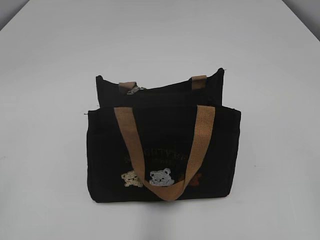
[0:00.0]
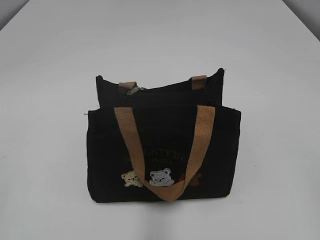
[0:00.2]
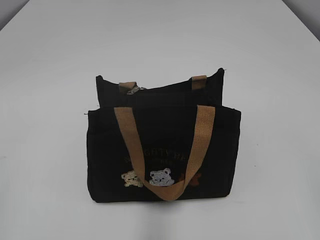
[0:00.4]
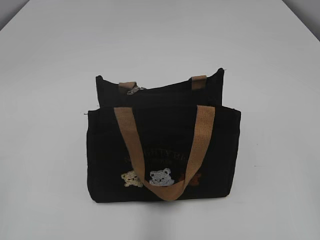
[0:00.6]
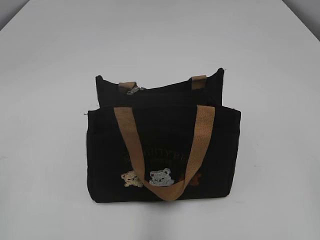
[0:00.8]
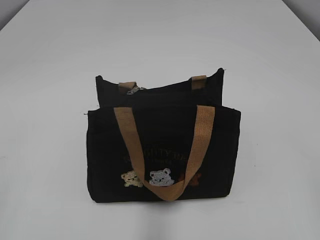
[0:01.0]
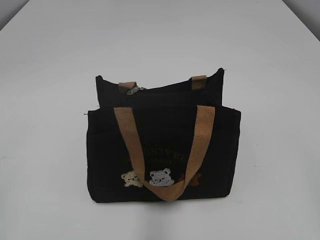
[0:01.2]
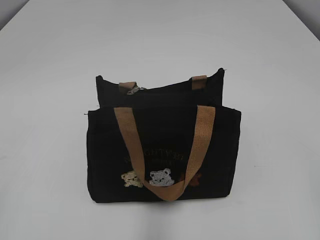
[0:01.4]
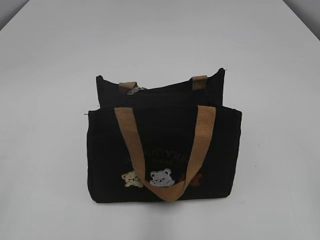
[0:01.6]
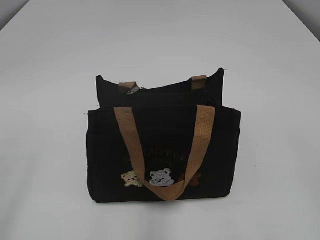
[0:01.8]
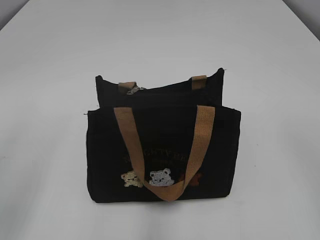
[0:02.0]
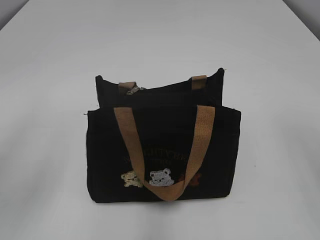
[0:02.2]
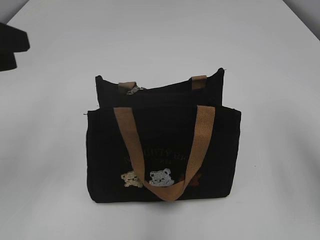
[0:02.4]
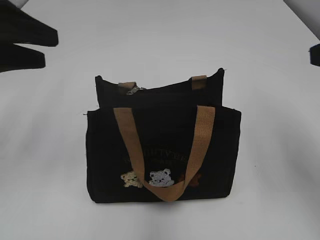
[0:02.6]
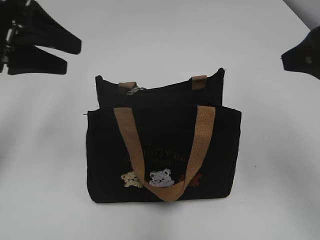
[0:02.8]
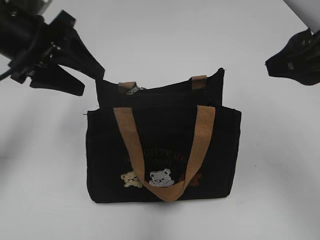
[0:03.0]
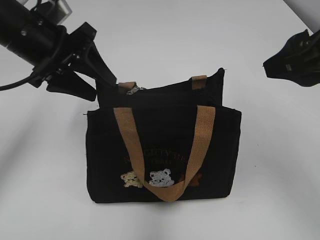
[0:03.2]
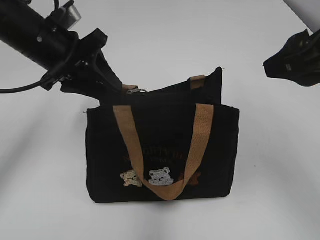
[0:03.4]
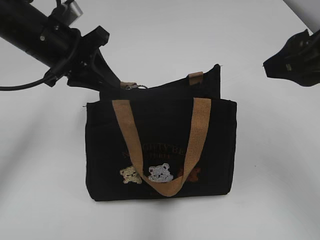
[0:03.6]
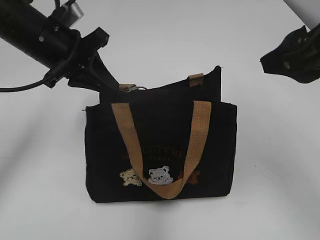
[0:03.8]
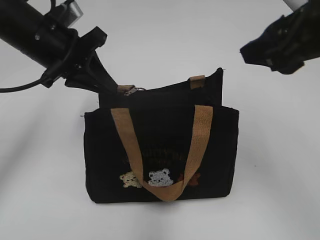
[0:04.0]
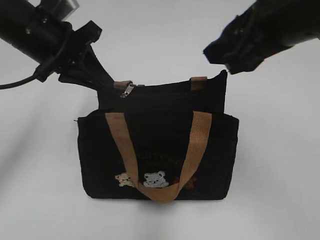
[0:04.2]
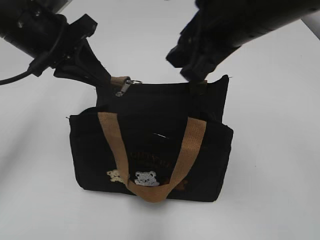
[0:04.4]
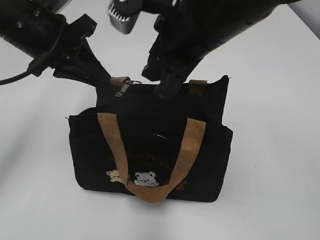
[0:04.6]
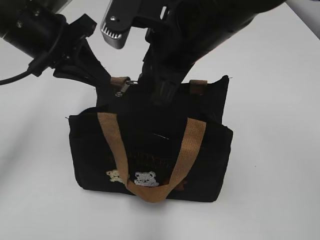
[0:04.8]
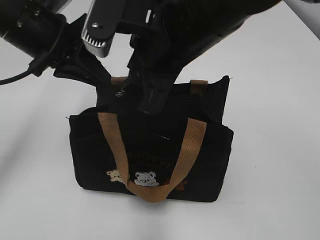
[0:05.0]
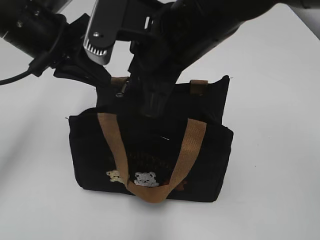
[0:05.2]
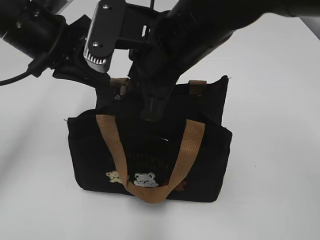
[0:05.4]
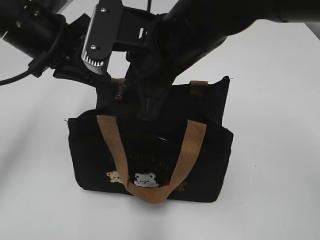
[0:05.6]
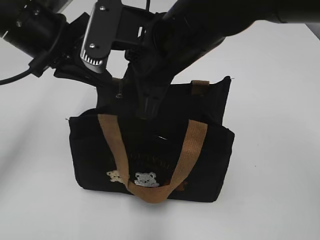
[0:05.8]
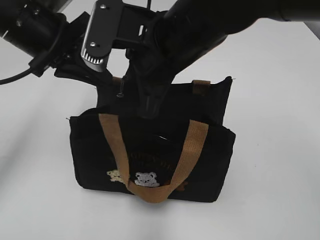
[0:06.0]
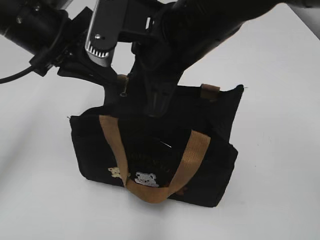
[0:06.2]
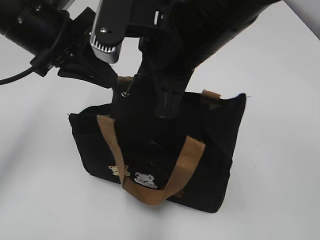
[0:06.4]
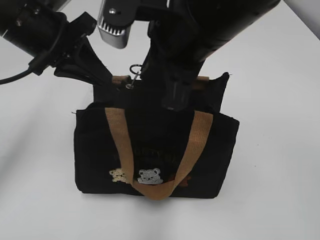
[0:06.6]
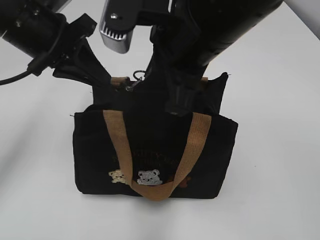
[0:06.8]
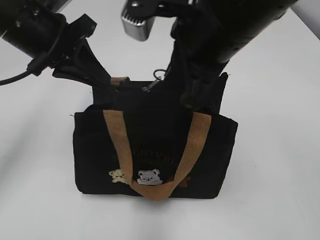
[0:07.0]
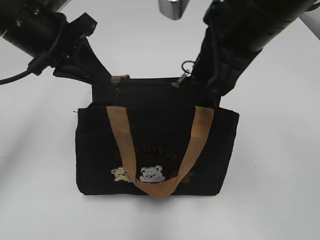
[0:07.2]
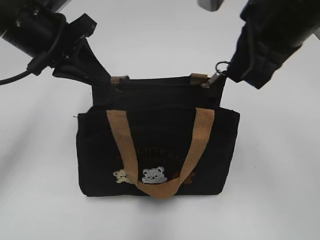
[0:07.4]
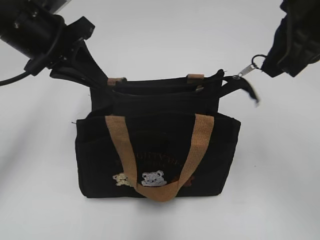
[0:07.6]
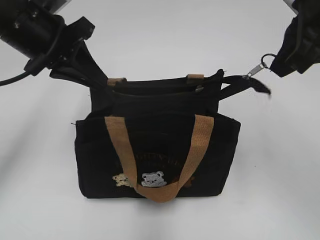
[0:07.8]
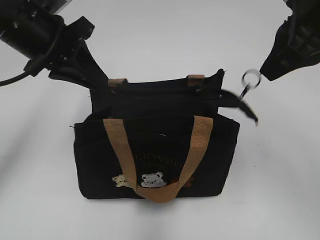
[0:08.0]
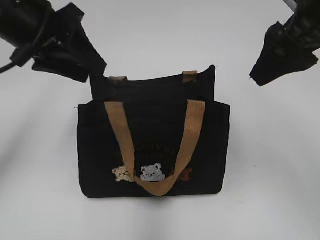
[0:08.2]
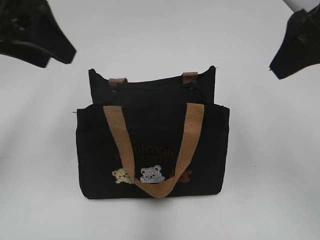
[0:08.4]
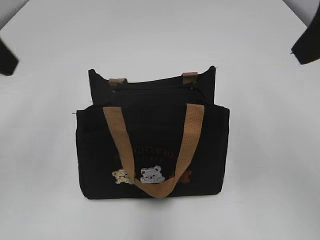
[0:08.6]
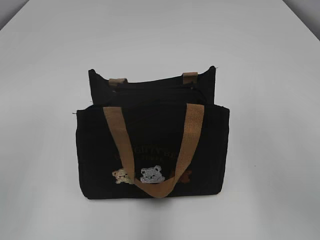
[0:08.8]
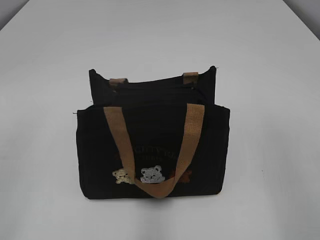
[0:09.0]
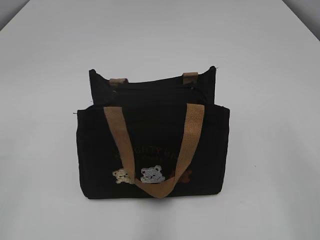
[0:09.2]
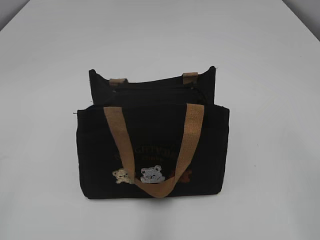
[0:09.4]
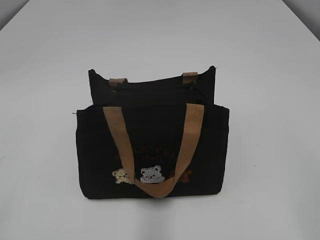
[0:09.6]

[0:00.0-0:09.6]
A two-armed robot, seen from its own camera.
Step, 0:00.0 to 0:08.0: Pull open the zipper with your right hand.
0:01.6 to 0:03.2: The left gripper heads forward and to the right, covering about 35 cm; the right gripper moves forward, some 20 cm.
0:03.2 to 0:04.8: The left gripper closes up. Meanwhile the right gripper heads to the left, covering approximately 15 cm, and closes its fingers.
0:04.8 to 0:06.4: The right gripper closes its fingers.
0:06.4 to 0:08.0: The right gripper is displaced to the right by approximately 15 cm.
0:08.0 to 0:09.6: The left gripper travels backward and to the left by roughly 35 cm, and opens up, while the right gripper shifts about 25 cm backward, and opens up.

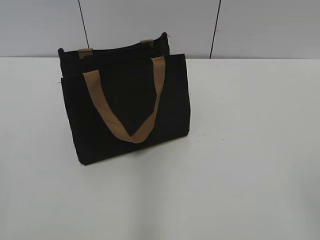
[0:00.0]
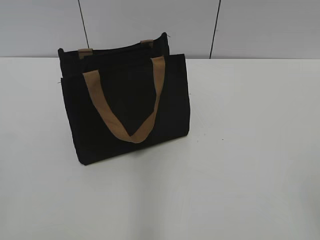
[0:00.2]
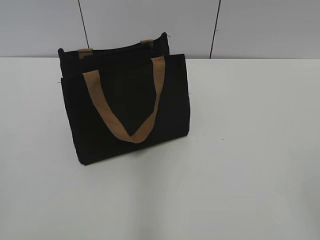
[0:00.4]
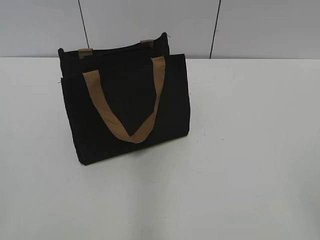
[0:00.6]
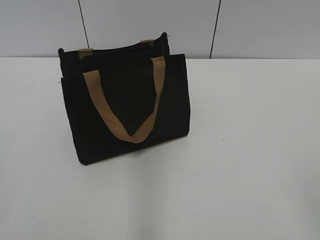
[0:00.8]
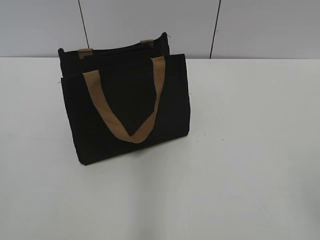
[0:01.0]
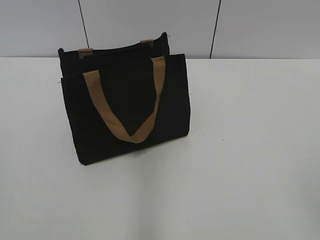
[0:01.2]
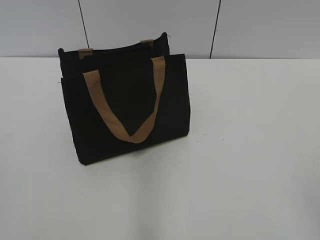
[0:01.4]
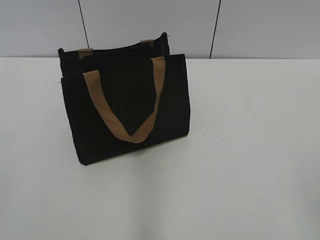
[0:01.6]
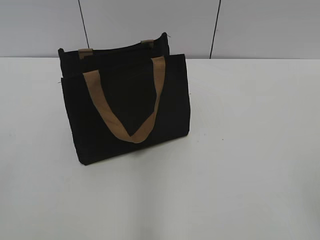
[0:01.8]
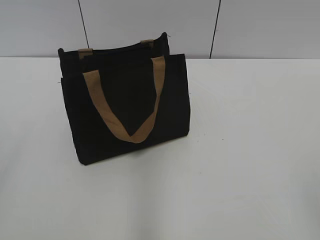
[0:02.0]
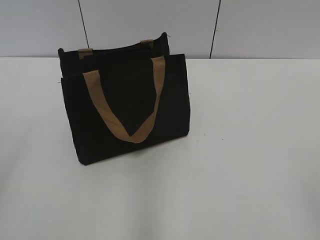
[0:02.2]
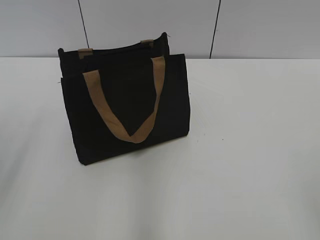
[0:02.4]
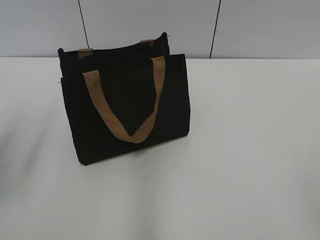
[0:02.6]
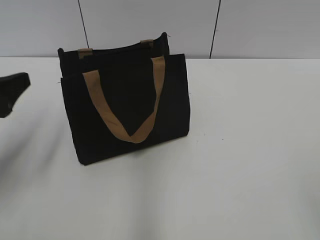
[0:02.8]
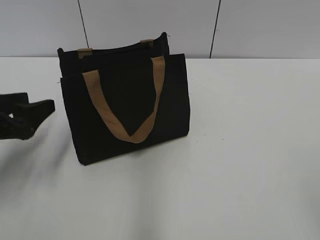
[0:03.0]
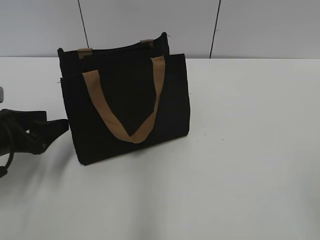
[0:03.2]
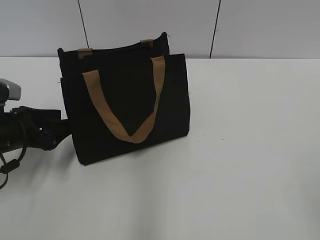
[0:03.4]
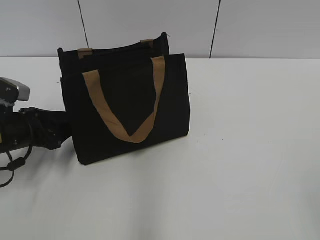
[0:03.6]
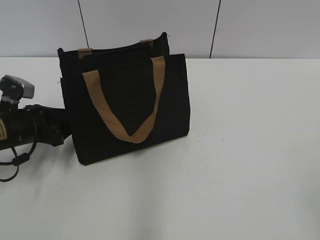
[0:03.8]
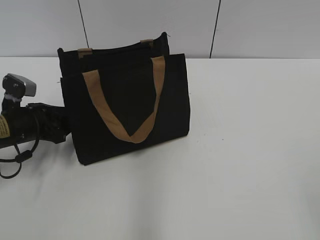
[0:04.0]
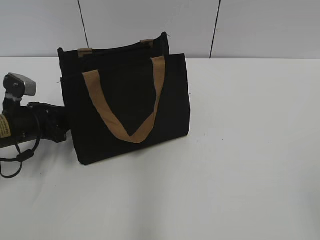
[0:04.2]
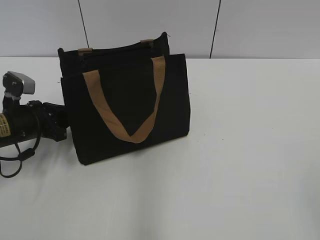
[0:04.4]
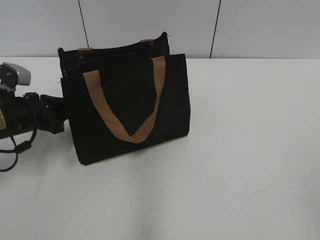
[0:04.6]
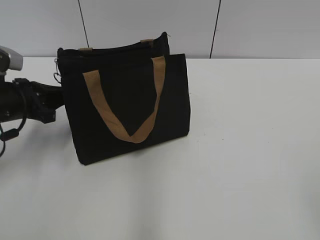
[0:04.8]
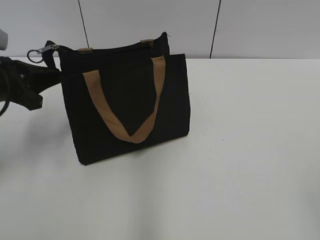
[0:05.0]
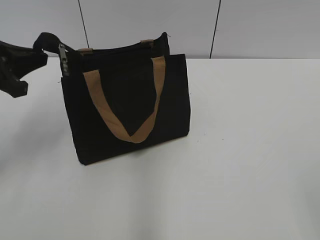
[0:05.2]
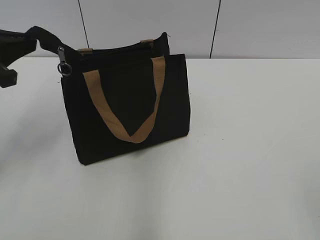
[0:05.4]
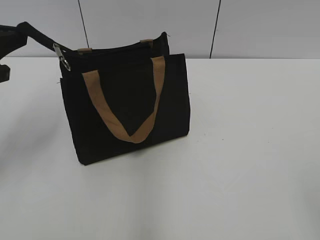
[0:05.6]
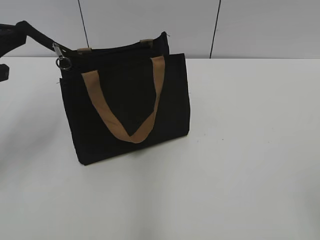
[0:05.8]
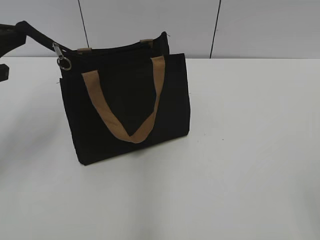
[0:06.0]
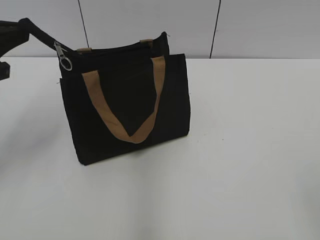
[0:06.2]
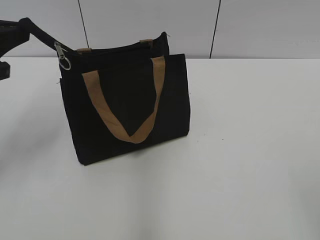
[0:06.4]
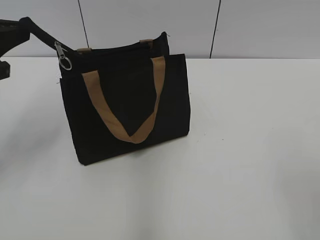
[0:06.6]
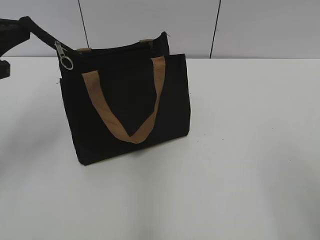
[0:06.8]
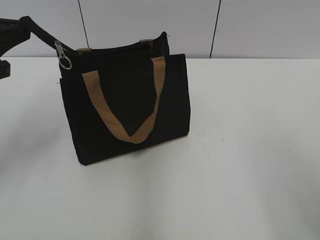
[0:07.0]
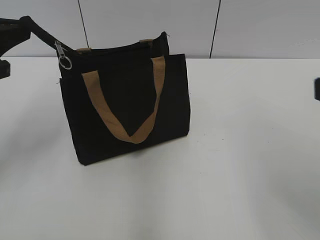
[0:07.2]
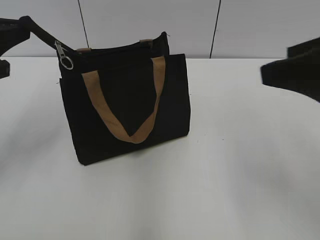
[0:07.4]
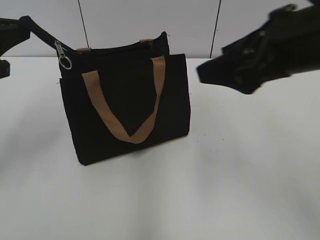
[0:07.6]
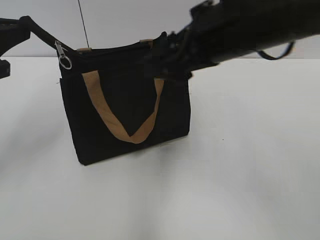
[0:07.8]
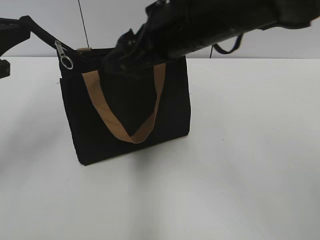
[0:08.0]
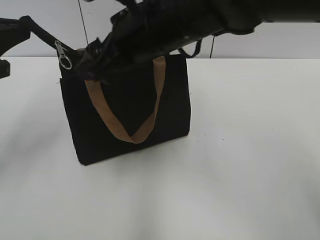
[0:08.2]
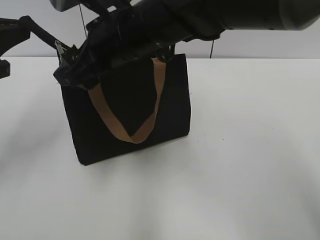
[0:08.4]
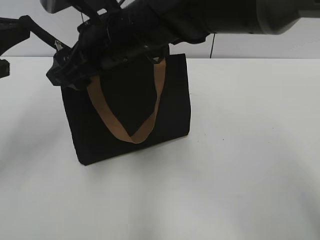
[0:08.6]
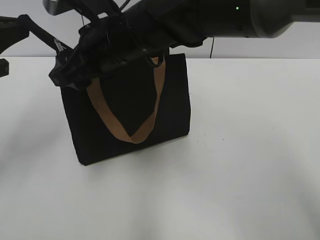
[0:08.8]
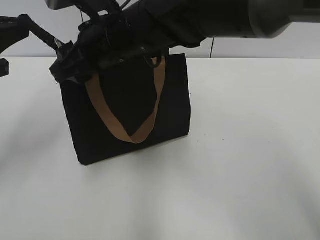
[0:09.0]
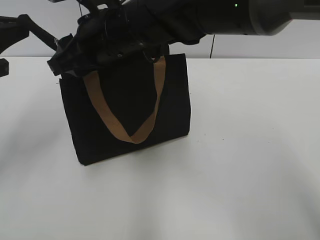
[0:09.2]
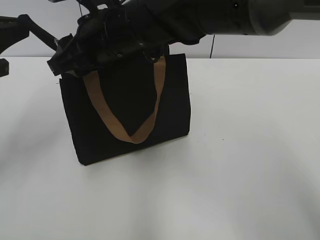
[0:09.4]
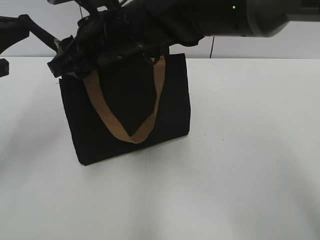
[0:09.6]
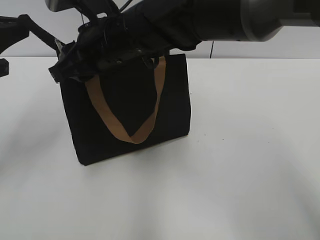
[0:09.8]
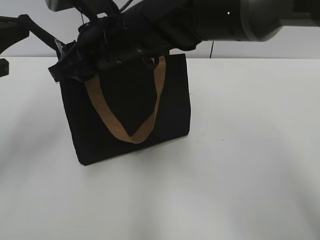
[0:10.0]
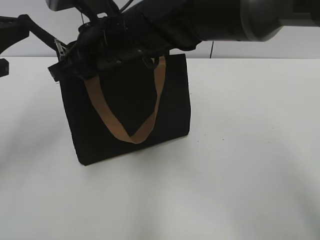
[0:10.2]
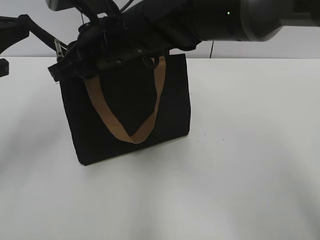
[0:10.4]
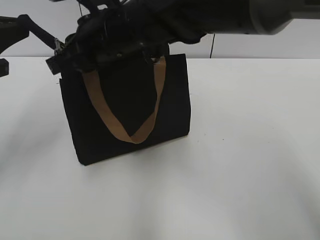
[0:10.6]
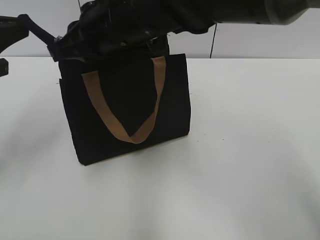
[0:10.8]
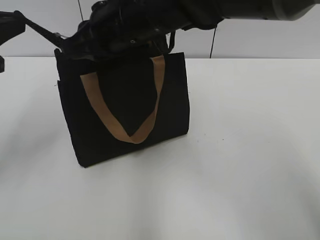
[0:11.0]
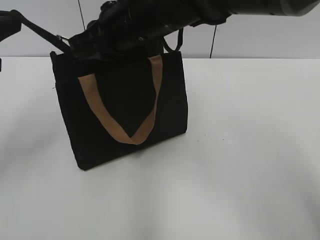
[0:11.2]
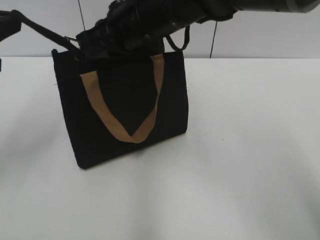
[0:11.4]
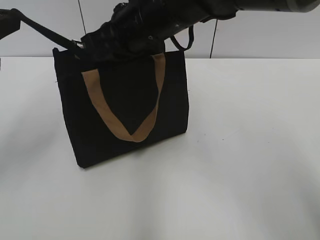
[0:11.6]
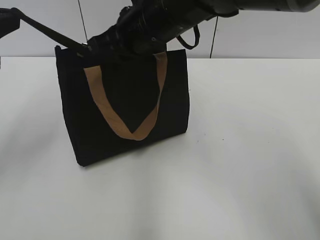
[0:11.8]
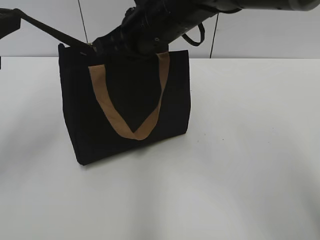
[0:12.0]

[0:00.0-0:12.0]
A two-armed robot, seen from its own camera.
0:01.6 to 0:03.0: The left gripper travels forward and downward by about 25 cm.
0:03.0 to 0:04.4: The left gripper is displaced forward and downward by approximately 10 cm, and closes its fingers.
0:04.4 to 0:06.0: The left gripper heads upward, covering about 20 cm.
0:06.0 to 0:07.6: The right gripper is displaced forward and to the left by about 25 cm.
0:07.6 to 0:09.0: The right gripper goes about 25 cm to the left and forward.
0:09.0 to 0:10.4: The right gripper closes.
0:10.4 to 0:12.0: The right gripper heads to the right, covering about 5 cm.

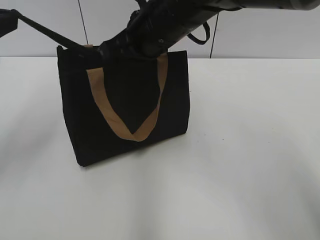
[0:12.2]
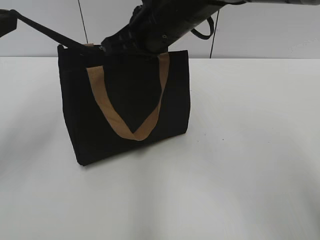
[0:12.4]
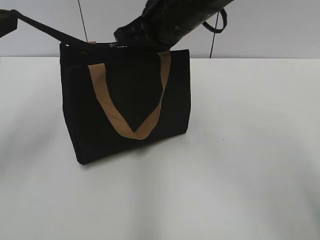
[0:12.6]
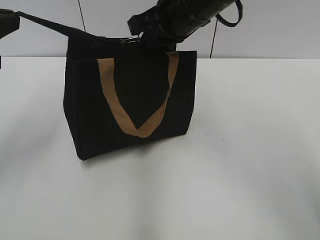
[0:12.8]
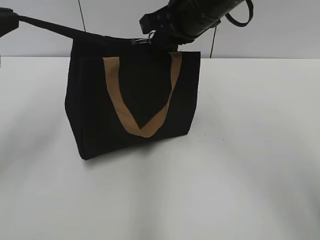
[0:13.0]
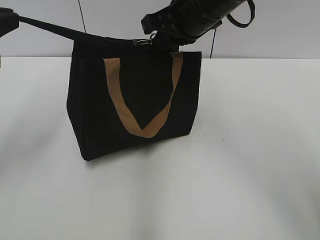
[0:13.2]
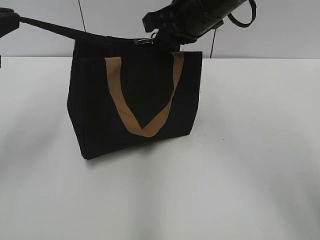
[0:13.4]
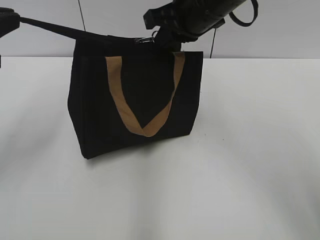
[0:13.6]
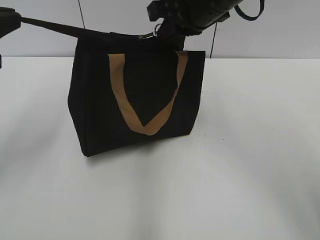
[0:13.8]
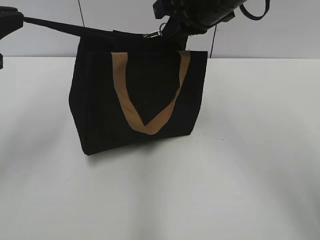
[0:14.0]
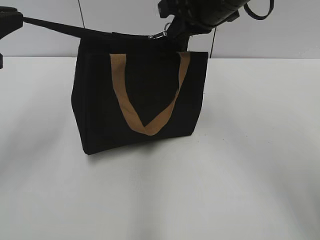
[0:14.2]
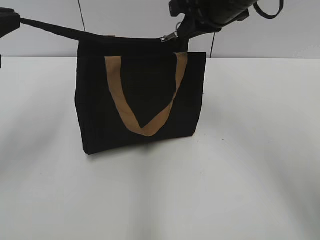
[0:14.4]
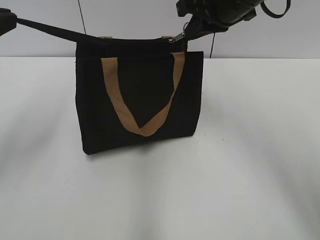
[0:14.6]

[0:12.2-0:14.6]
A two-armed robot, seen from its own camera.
0:12.2 to 0:13.4: The right gripper is displaced to the right by some 5 cm.
0:13.4 to 0:14.6: The right gripper changes place by roughly 5 cm.
